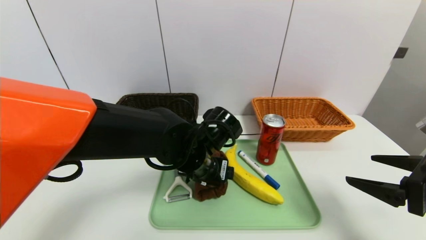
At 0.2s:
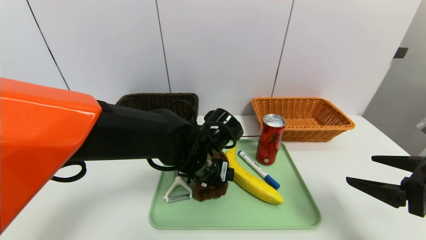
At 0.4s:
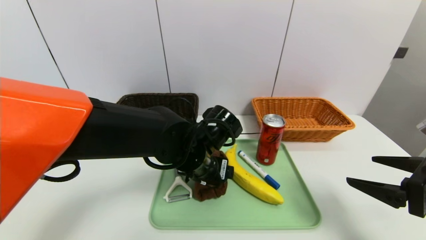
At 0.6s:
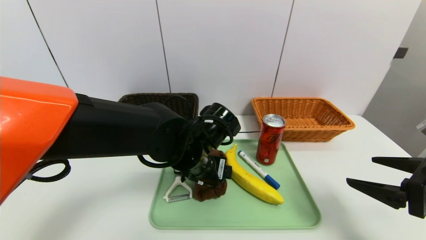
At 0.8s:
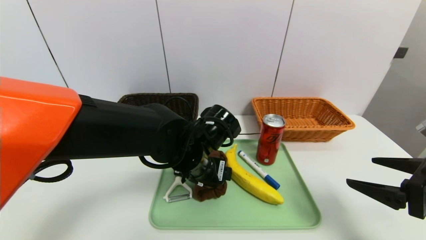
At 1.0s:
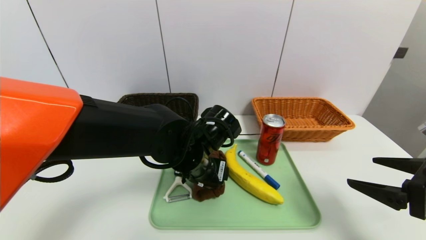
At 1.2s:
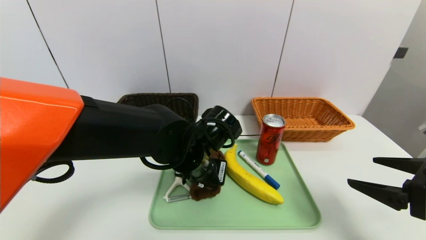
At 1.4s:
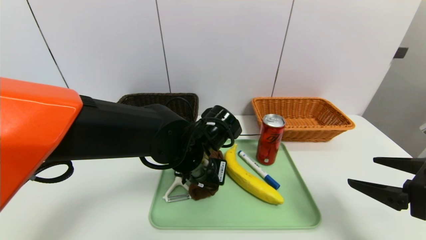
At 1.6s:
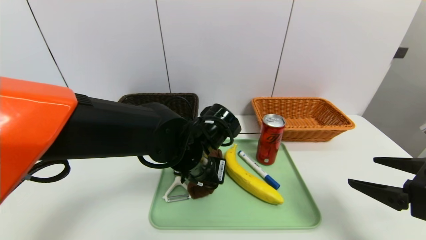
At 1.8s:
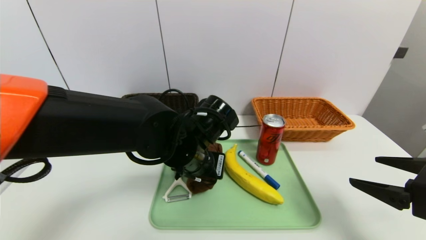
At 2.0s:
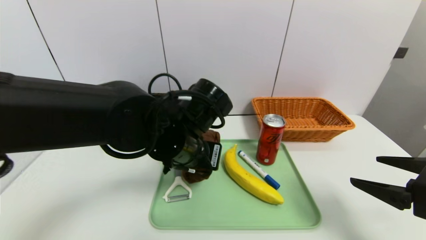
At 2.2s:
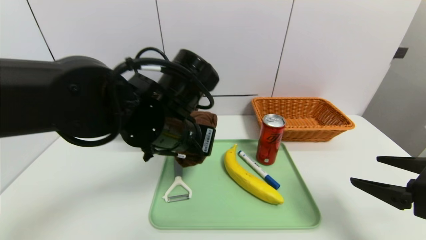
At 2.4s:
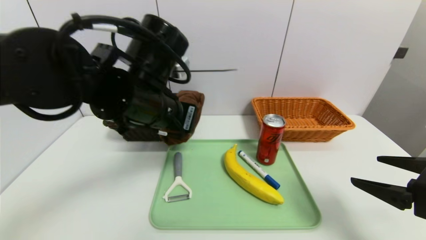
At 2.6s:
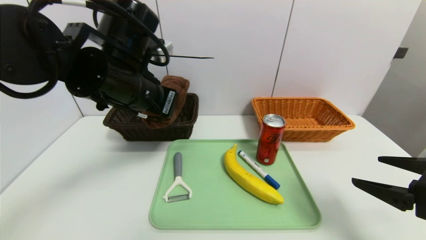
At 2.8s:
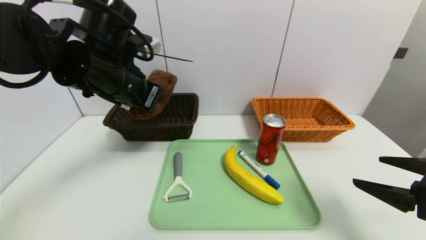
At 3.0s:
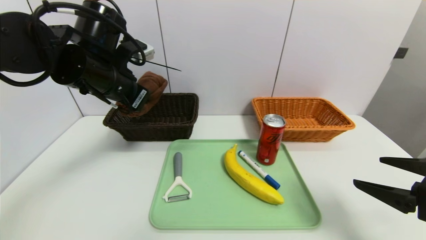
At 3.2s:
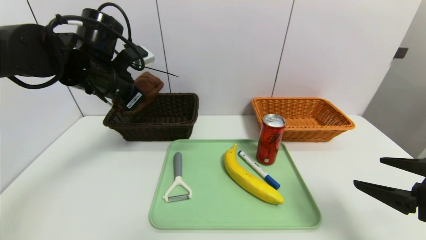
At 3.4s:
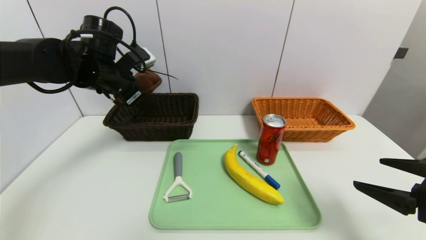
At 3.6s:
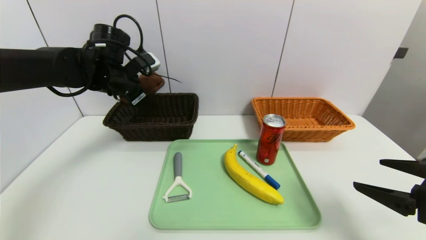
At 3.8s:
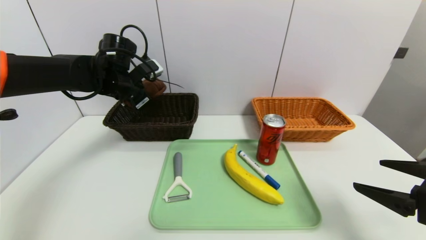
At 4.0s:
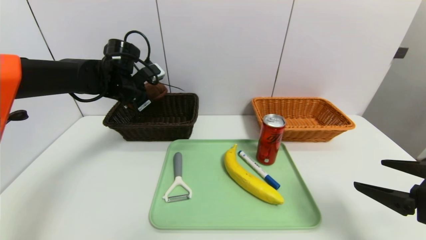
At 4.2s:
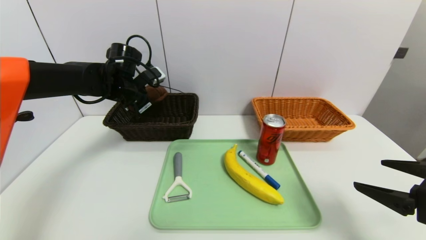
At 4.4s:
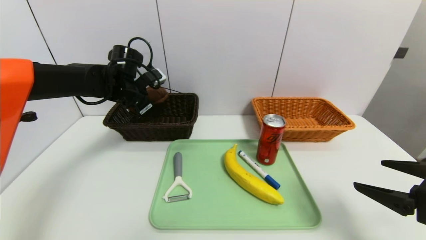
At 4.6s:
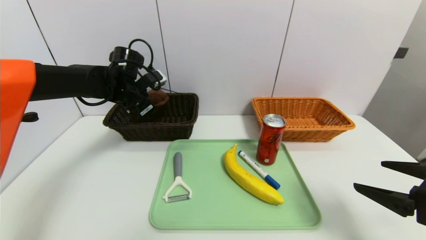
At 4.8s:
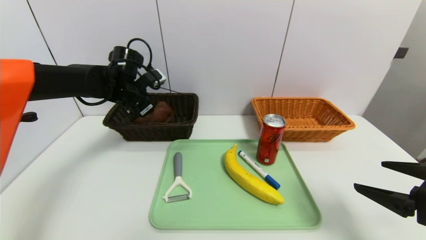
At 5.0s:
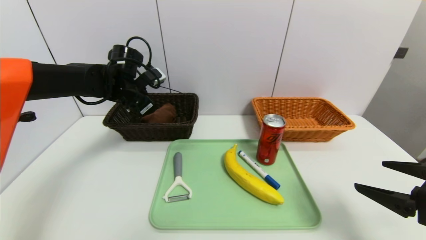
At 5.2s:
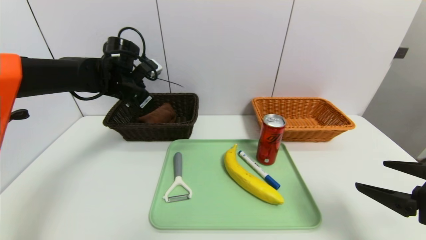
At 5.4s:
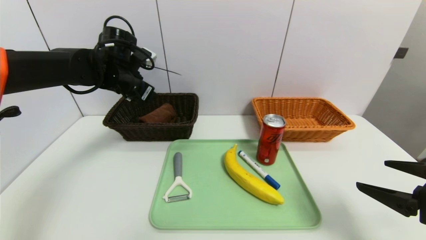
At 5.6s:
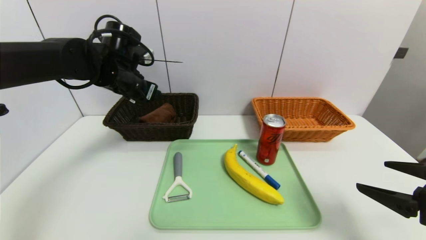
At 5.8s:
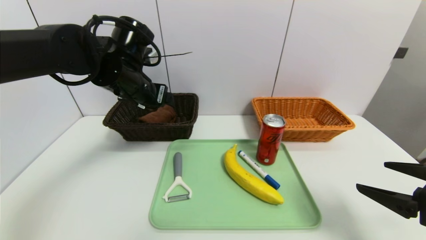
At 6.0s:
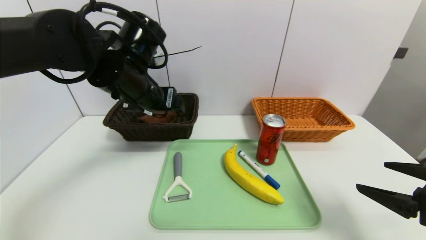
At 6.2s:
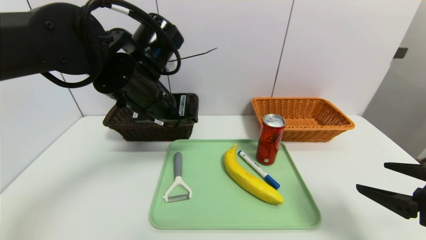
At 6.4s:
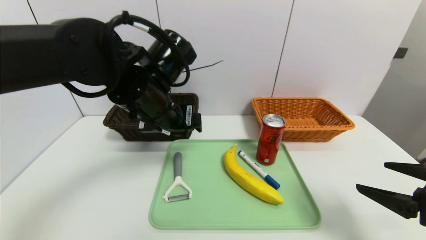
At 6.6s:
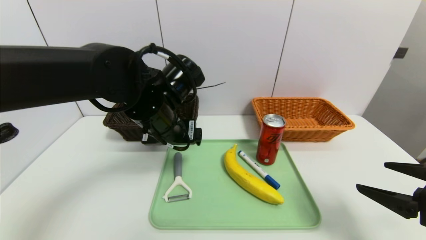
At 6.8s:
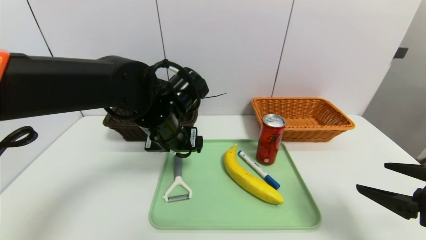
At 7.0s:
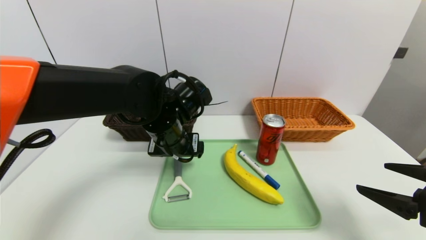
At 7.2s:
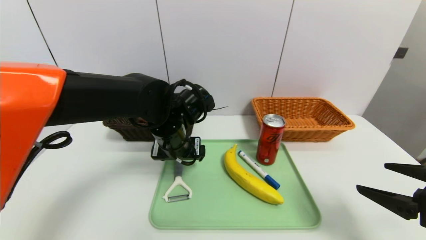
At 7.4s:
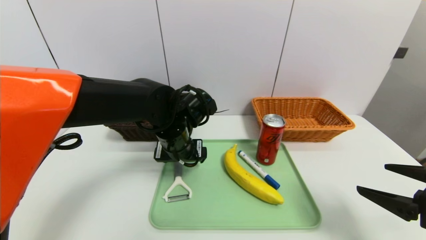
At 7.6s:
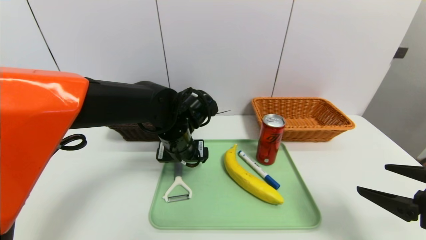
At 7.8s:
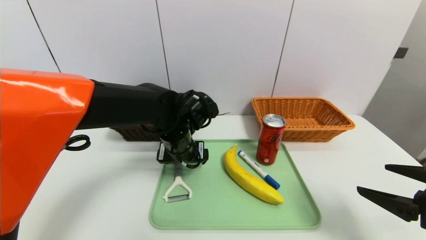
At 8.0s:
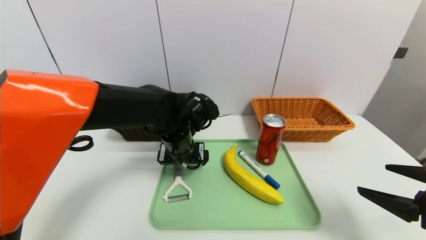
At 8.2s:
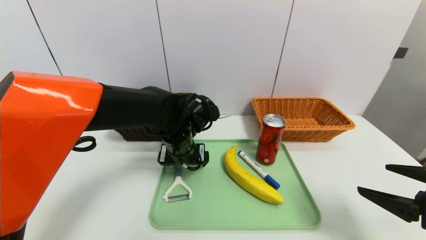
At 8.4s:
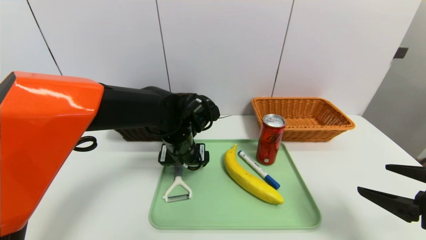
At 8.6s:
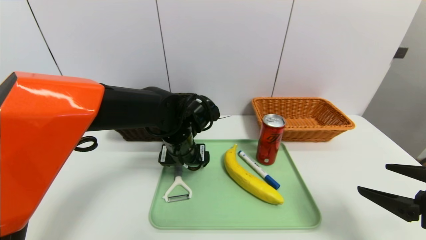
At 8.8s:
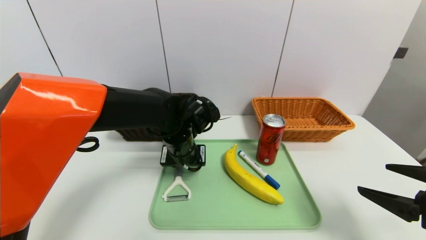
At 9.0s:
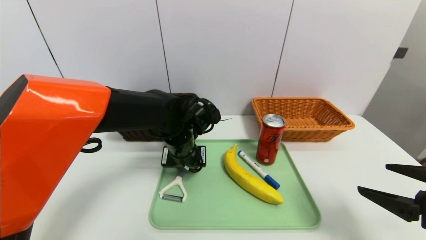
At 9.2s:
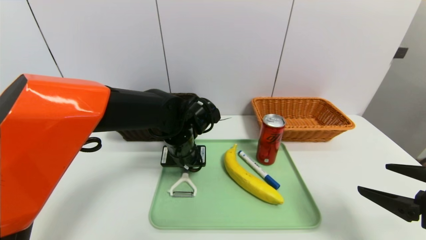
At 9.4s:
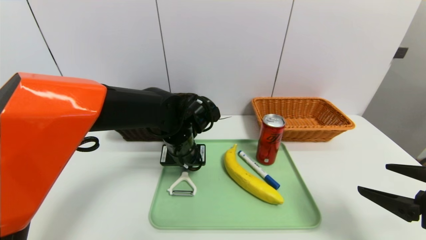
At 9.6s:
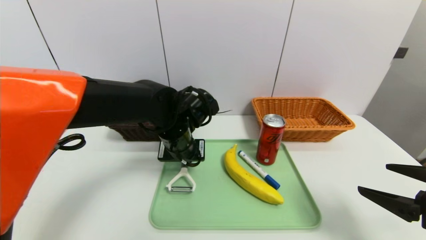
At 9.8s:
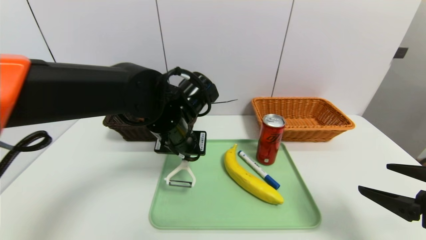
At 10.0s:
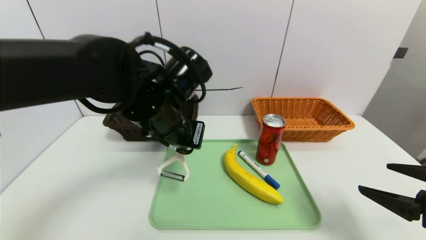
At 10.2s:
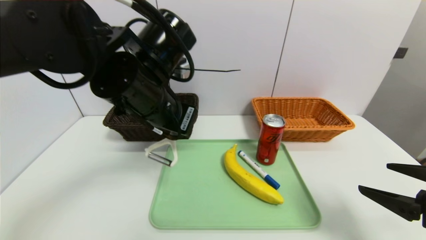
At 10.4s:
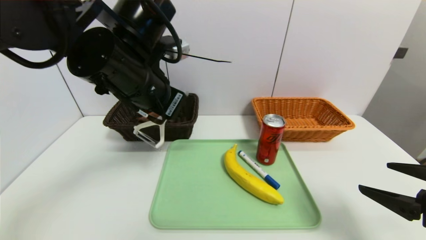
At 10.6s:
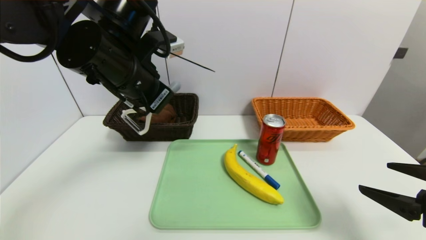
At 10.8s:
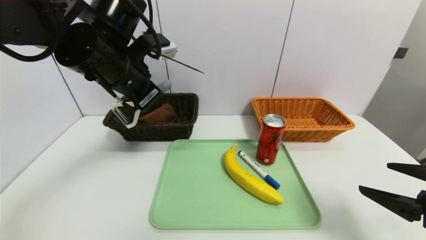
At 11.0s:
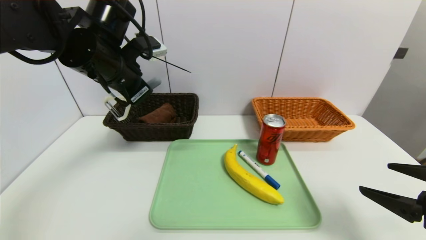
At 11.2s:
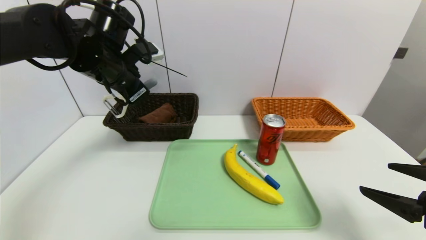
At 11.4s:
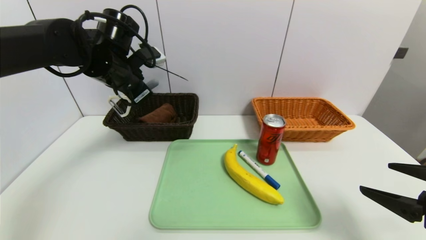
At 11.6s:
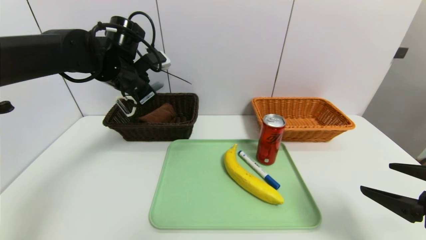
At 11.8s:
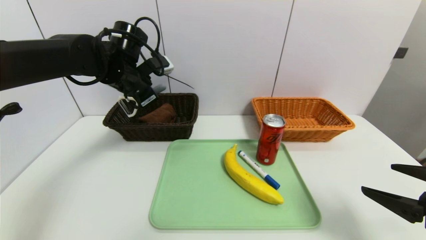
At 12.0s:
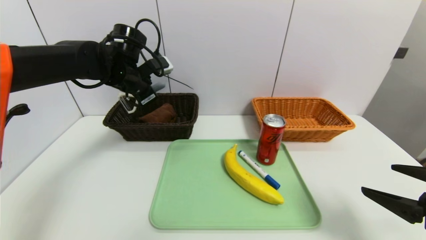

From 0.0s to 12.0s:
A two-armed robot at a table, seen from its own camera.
Task of the whole recording: place the food in the right basket with the right gripper, and place the non food items in the left basket with the left gripper.
Step, from 0.0s to 5.6s: Grasp the brown towel and put it in the left basket.
From 0.0s to 1.6s: The left gripper closes up.
From 1.6s to 3.0s: The left gripper travels to the left and upward by approximately 20 cm.
From 3.0s to 4.4s: The left gripper heads forward and downward, covering roughly 15 cm.
From 4.4s to 6.0s: The left gripper travels backward, to the right and upward by some 15 cm, and opens.
From 6.0s to 7.6s: The left gripper is displaced downward and to the right by approximately 15 cm.
From 7.6s to 9.0s: The left gripper closes its fingers.
From 9.0s to 10.4s: The left gripper moves upward, some 15 cm, and closes its fingers.
From 10.4s to 12.0s: The left gripper shifts roughly 15 cm forward and to the left.

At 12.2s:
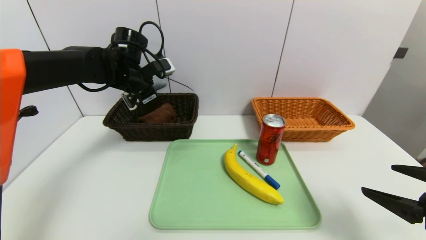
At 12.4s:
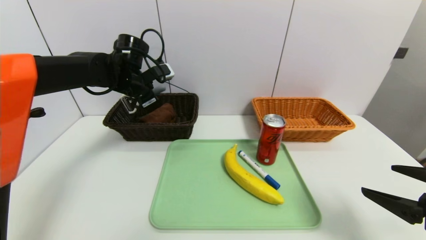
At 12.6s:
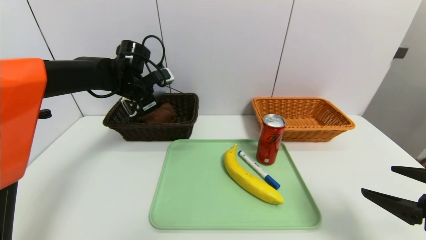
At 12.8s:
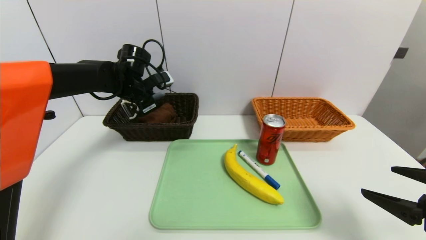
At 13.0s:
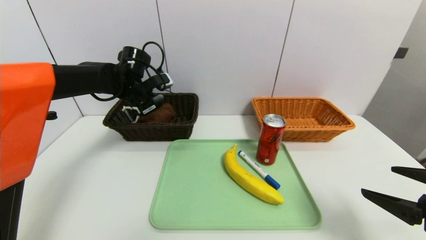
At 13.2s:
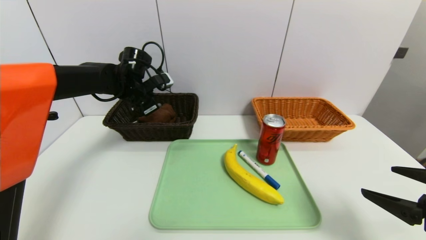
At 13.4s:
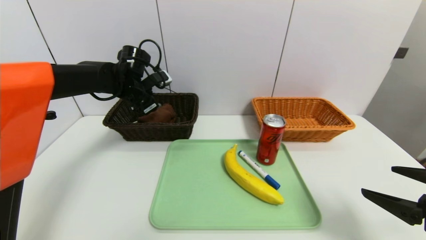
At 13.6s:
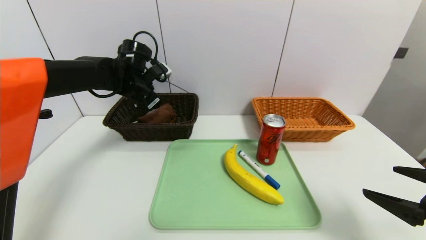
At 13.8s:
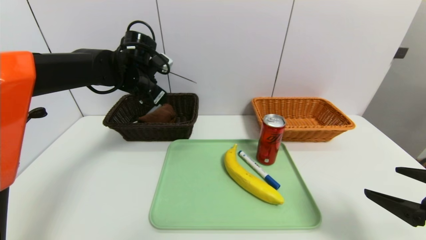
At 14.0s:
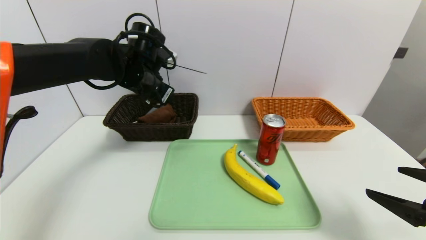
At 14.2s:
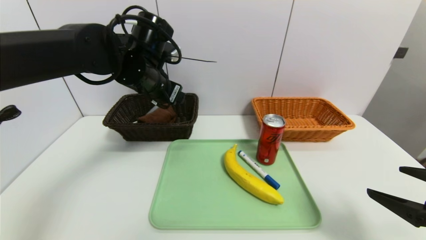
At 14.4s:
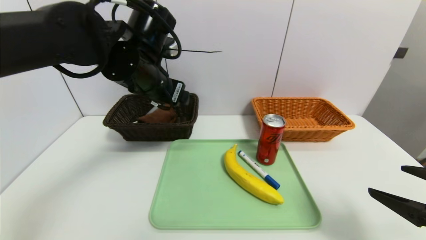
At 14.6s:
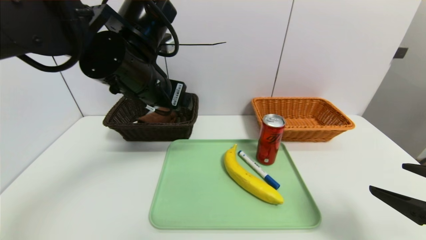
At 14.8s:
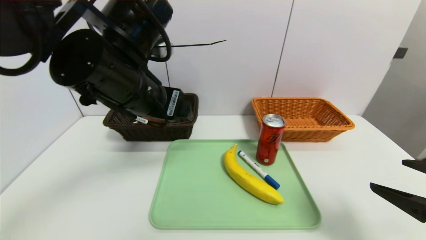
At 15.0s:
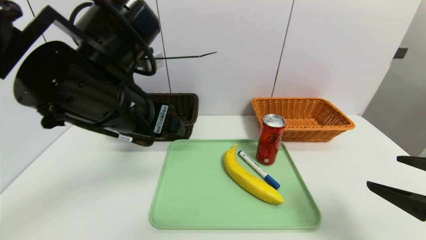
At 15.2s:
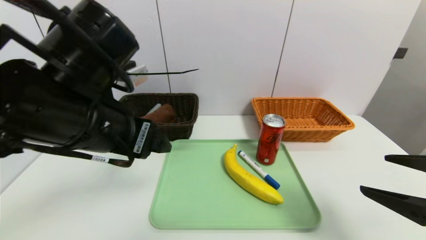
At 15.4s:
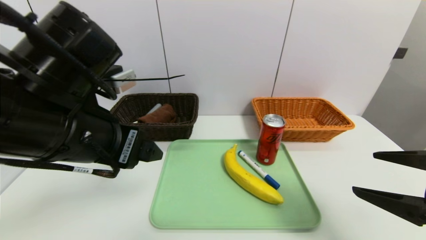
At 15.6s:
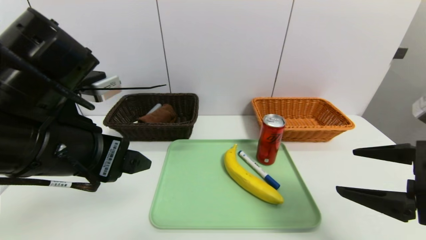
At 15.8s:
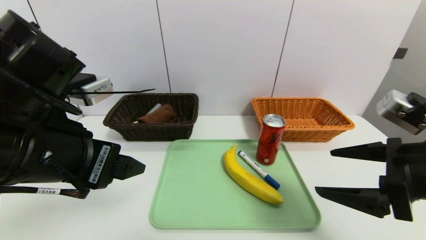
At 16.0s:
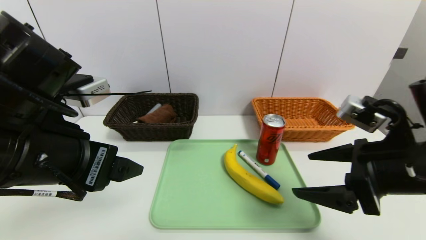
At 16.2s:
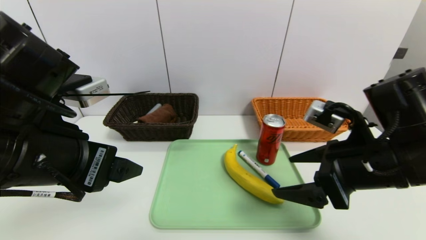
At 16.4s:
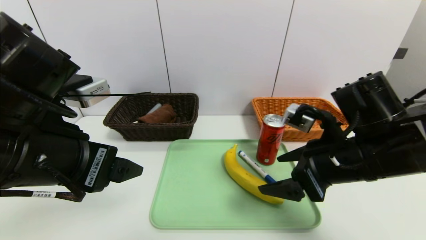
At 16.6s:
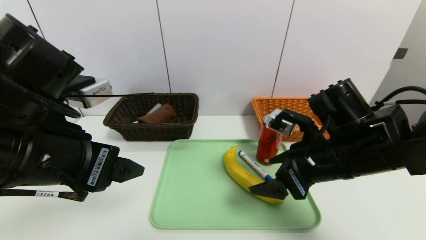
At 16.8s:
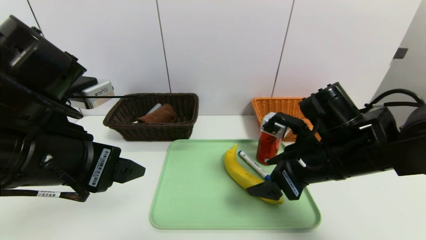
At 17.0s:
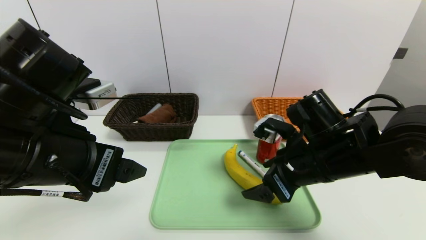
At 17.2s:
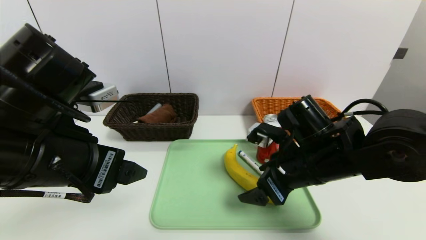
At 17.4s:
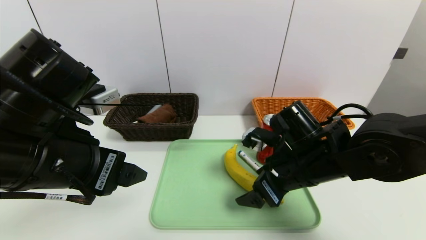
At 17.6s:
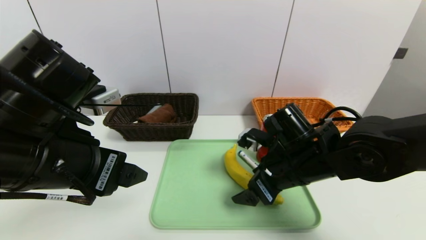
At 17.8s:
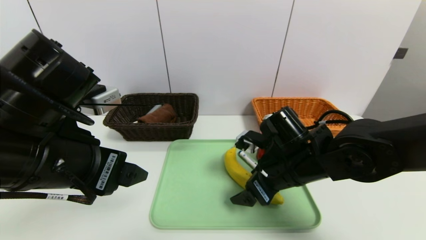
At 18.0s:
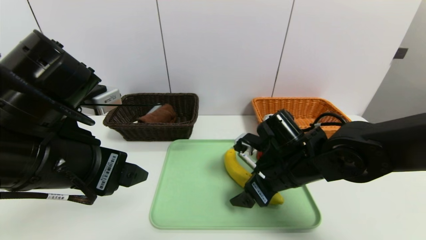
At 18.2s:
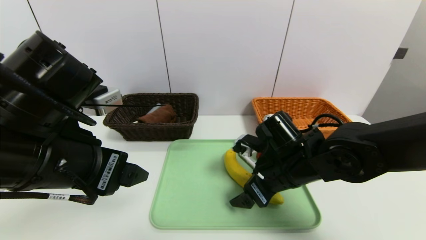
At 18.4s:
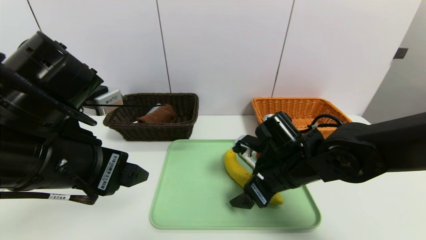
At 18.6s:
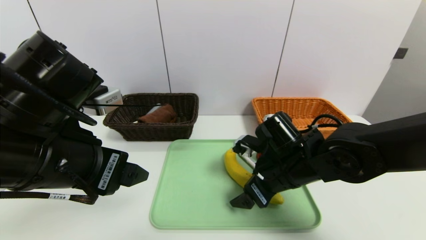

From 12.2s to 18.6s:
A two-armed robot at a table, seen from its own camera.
Task of the whole recording: place the food in the right basket with the right gripper, and place the non food items in the left basket with the left gripper.
From 12.2s to 13.8s: The left gripper opens its fingers.
From 13.8s to 15.4s: The right gripper changes place by approximately 5 cm. The left gripper shifts some 25 cm backward.
From 15.4s to 17.0s: The right gripper heads to the left and forward, covering about 20 cm.
From 17.0s to 18.6s: The right gripper changes place by roughly 5 cm.
